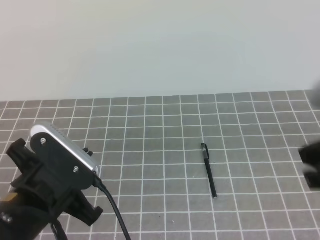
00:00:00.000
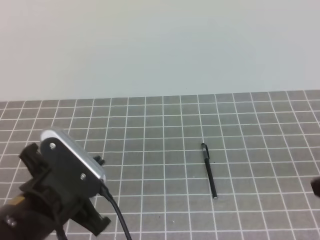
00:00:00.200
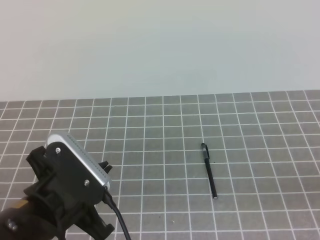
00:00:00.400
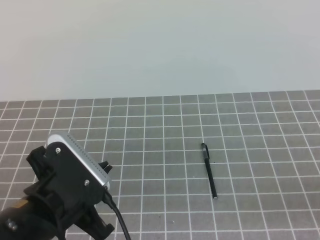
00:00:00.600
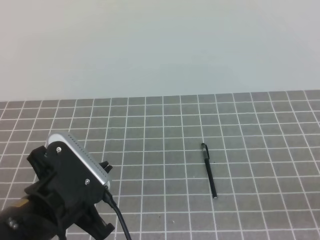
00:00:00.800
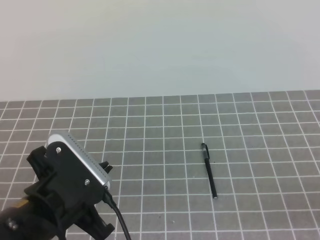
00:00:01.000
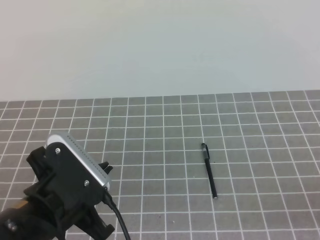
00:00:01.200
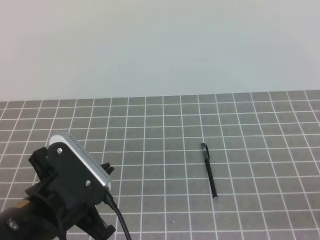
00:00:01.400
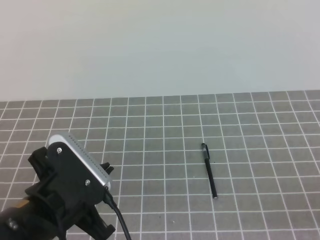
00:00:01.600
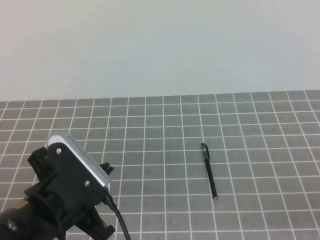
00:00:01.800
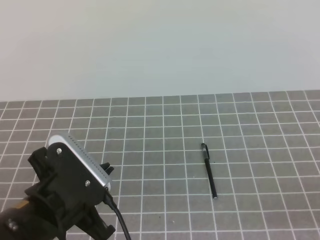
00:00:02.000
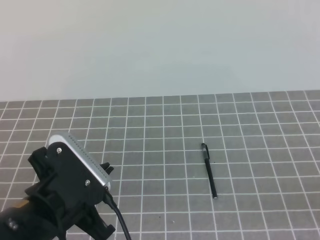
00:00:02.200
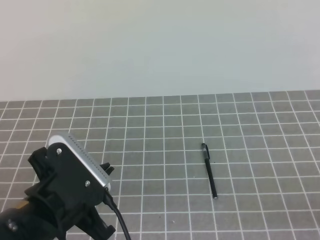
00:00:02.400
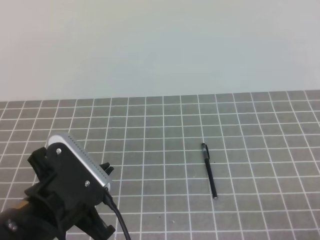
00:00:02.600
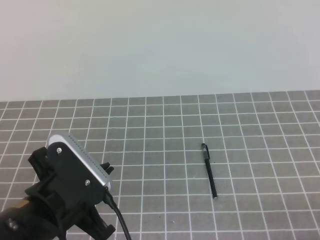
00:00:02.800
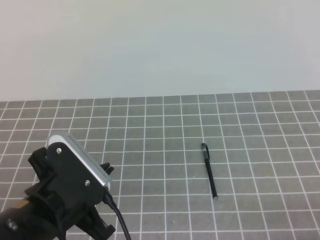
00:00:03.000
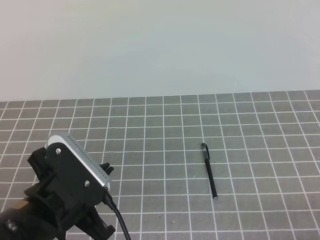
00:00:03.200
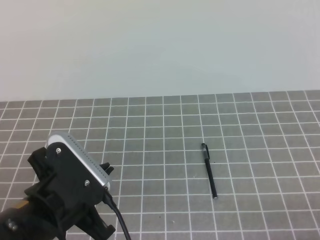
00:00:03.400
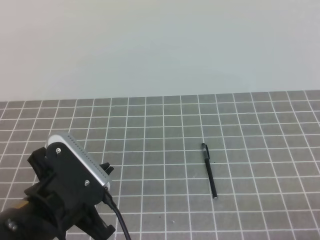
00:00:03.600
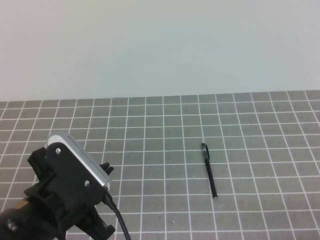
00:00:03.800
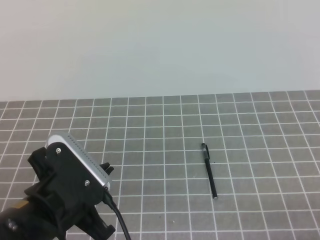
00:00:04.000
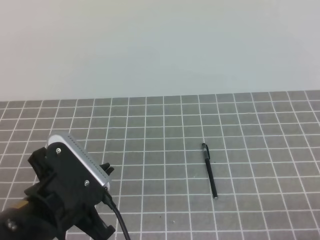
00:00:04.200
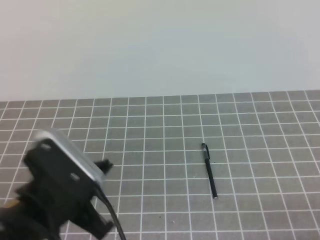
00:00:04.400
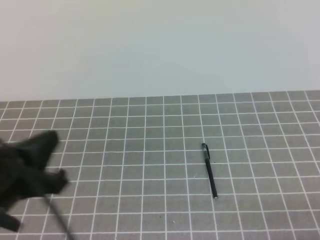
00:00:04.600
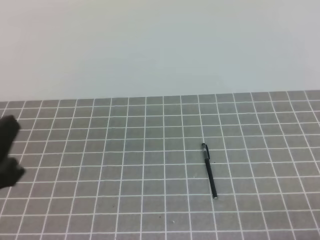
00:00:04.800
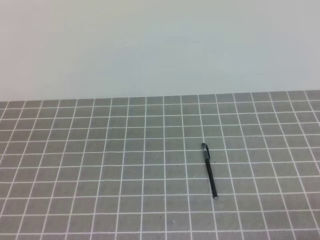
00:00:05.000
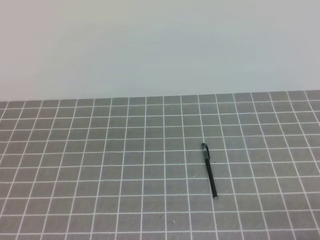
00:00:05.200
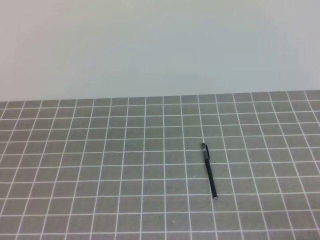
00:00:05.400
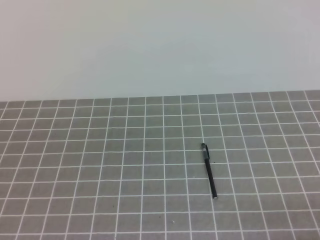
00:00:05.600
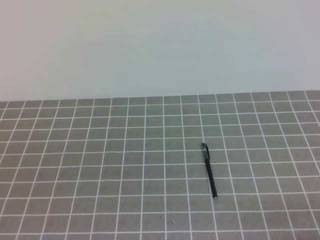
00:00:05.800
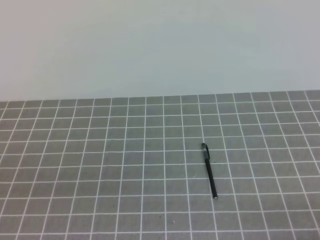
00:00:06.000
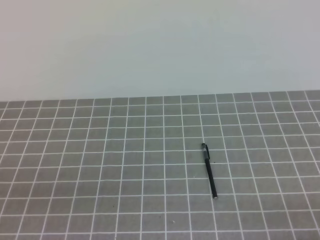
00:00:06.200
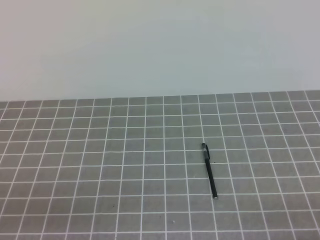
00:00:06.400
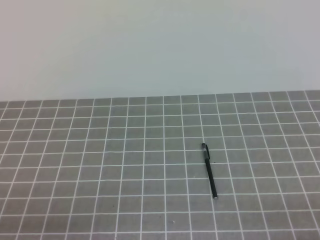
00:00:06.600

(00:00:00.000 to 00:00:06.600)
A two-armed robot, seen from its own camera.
Task of the whole recording: on the grey tablecloth, hold the pen cap in one hand and the pen in the other, then cover the pen cap.
00:00:00.000 - 00:00:01.600: The right gripper is displaced downward, backward and to the right by roughly 15 cm.
00:00:03.200 - 00:00:05.000: The left gripper shifts about 15 cm to the left, upward and backward.
00:00:05.000 - 00:00:06.600: The left gripper moves downward and backward, some 15 cm.
